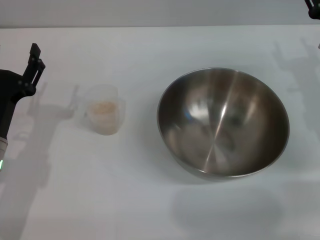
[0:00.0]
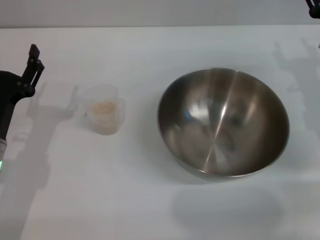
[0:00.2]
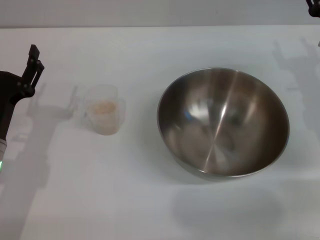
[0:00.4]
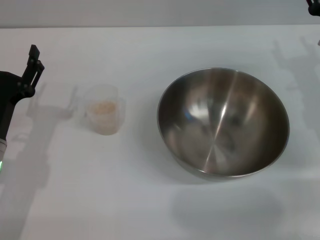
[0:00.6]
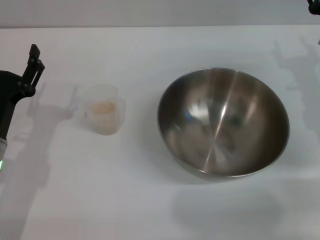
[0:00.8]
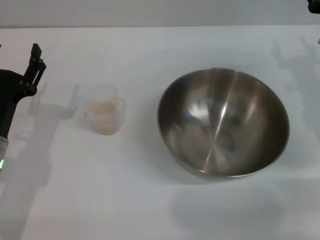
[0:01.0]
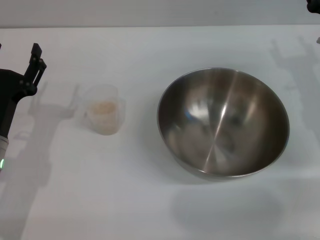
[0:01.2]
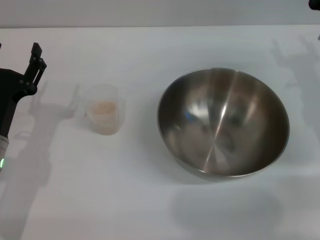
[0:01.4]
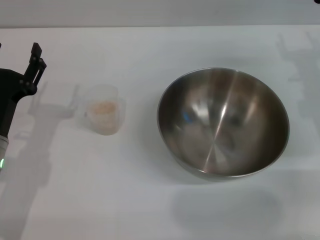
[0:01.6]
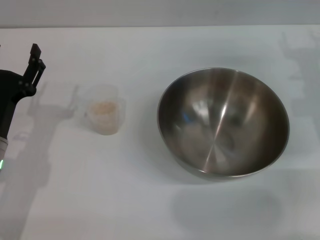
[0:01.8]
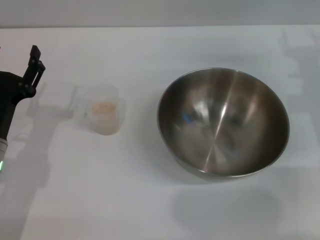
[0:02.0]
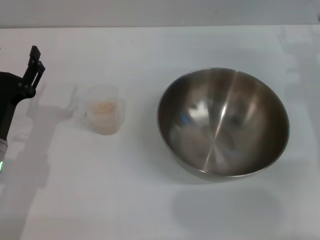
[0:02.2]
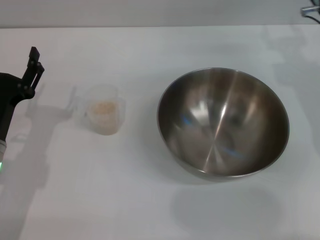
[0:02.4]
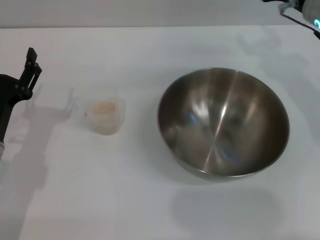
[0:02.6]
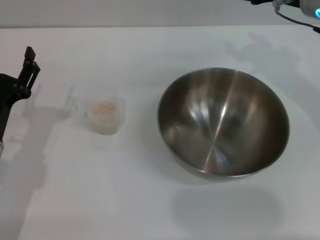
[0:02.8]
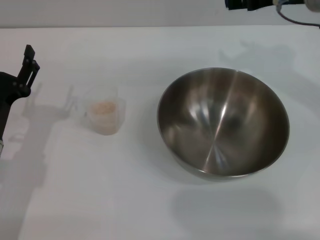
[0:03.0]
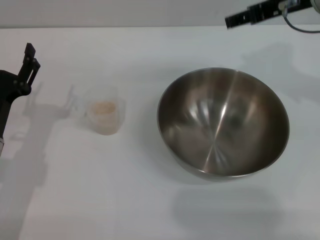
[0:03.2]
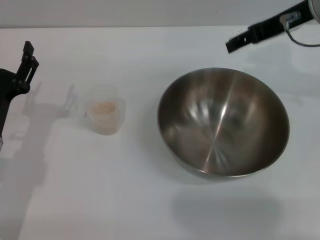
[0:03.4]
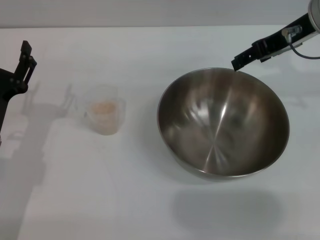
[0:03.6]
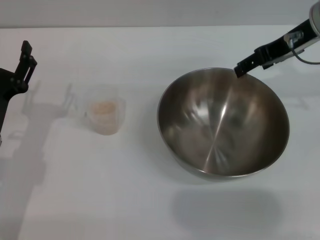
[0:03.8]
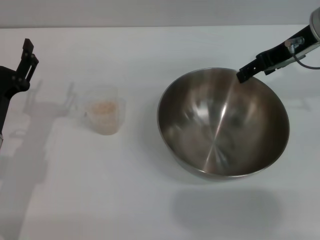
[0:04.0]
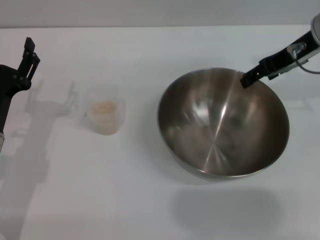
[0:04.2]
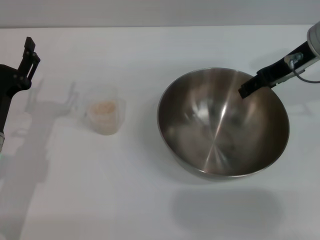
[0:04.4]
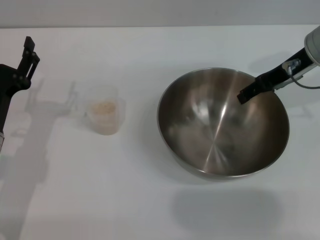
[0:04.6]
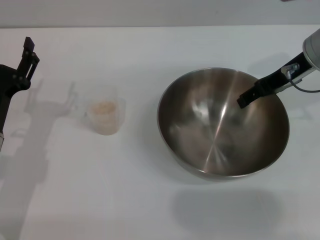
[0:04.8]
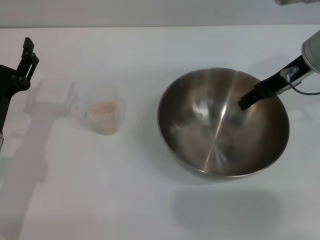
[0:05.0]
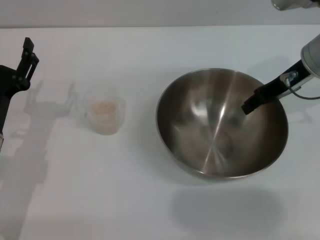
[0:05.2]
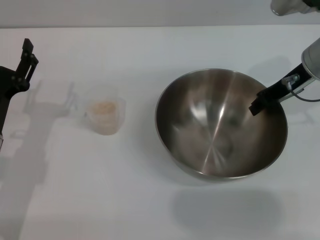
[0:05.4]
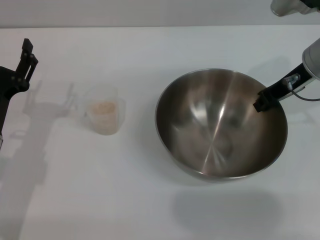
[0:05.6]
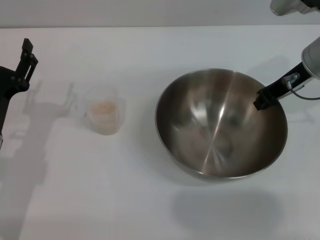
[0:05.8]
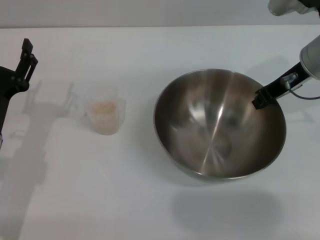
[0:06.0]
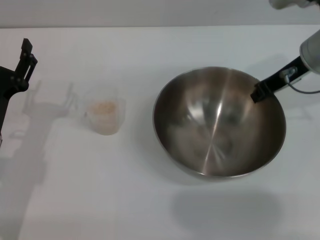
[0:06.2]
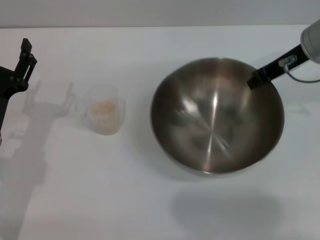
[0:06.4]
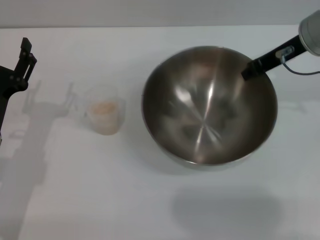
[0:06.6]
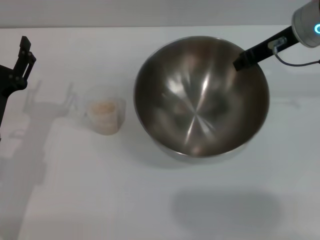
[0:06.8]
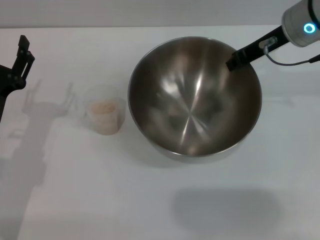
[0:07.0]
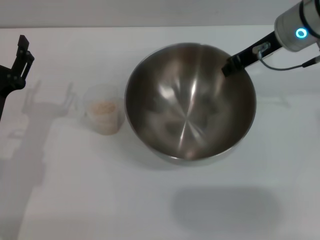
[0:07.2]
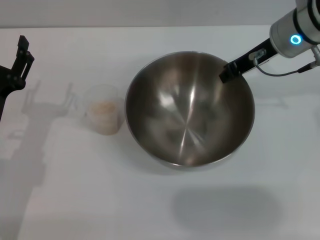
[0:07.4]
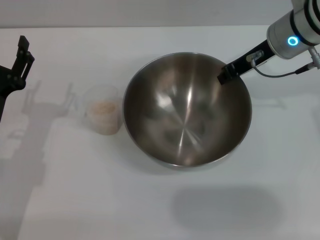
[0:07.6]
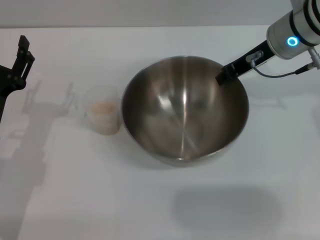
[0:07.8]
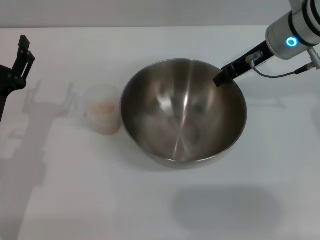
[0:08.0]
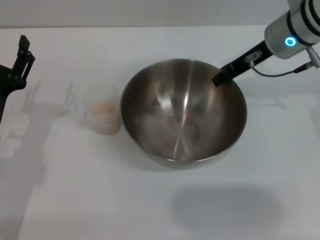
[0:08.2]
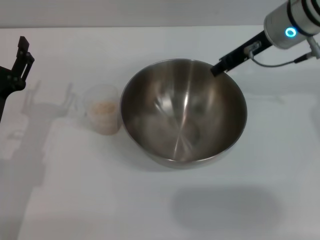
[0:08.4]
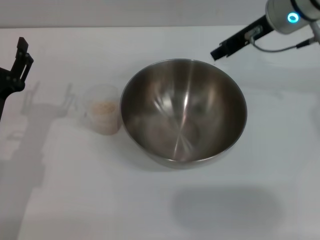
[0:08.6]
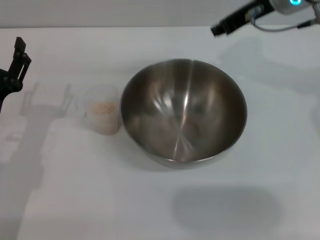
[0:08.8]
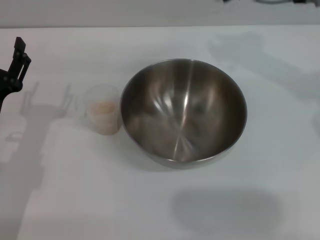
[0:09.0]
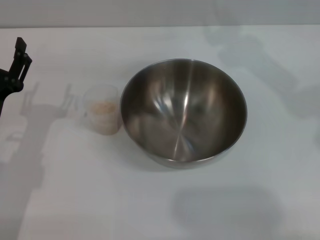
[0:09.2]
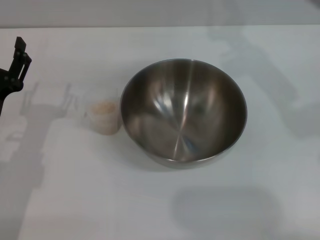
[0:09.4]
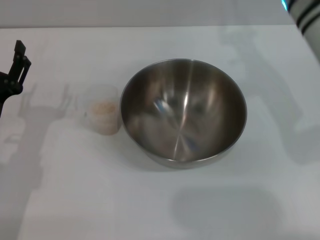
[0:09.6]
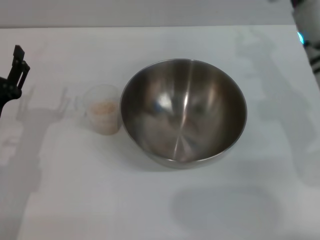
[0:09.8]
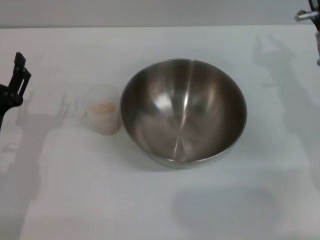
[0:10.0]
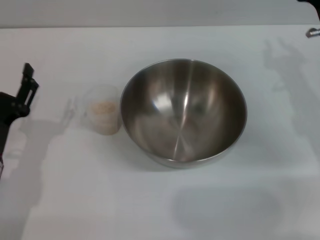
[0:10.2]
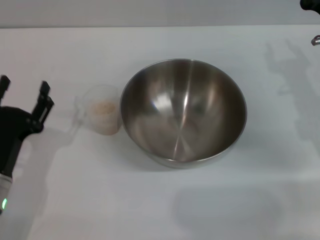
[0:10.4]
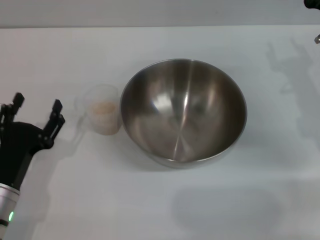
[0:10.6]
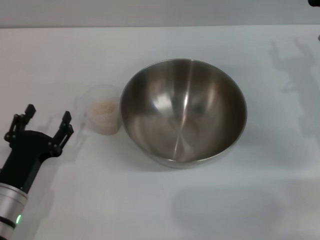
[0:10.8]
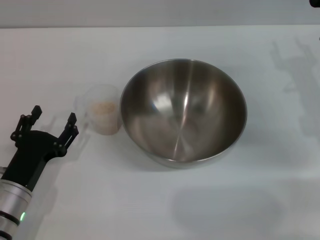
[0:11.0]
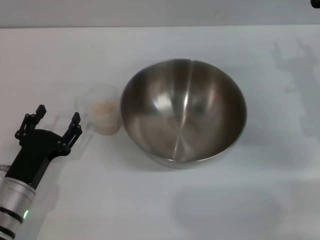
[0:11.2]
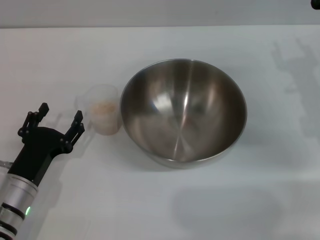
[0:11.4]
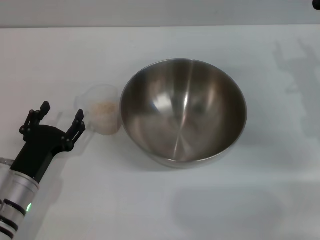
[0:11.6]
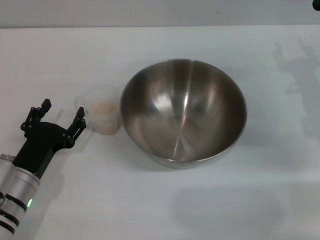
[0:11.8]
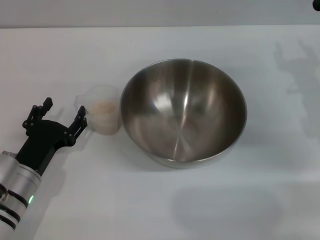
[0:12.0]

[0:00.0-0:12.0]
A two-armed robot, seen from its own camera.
Task of the whole recording: Place the bowl in the middle of the table with one hand and pour the rice from the grain cup into it with the other hand.
Step, 0.0 to 7.0 s: Pick up the bowl with the right gripper.
Step, 7.2 to 8.2 s: Place the bowl in the center of view with the right gripper.
0.0 to 1.6 s: The grippers move only a little.
1.6 to 3.0 s: The right gripper moves upward and to the left, about 15 cm.
3.0 to 4.4 s: The right gripper travels downward by approximately 5 cm.
4.4 to 6.0 s: The right gripper closes its fingers.
7.6 to 9.0 s: The right gripper shifts approximately 5 cm upward, and opens its fingers.
9.0 to 10.4 s: The right gripper travels downward, backward and to the right by some 20 cm.
10.4 to 12.0 s: The grippers make only small movements.

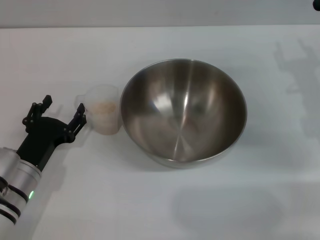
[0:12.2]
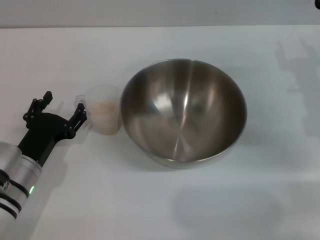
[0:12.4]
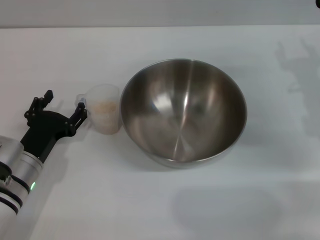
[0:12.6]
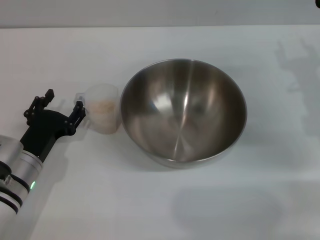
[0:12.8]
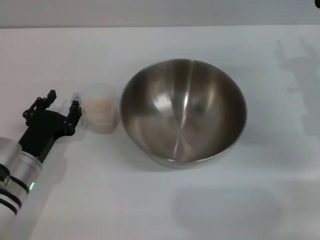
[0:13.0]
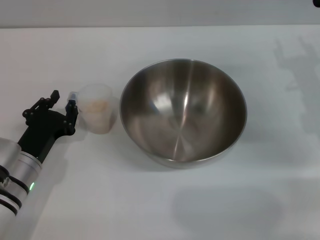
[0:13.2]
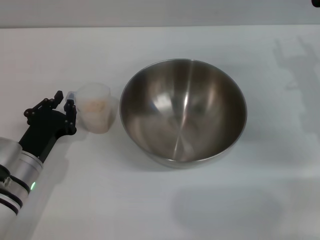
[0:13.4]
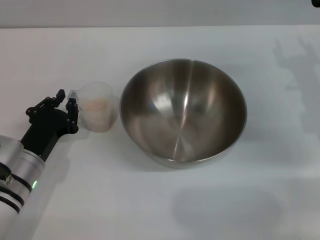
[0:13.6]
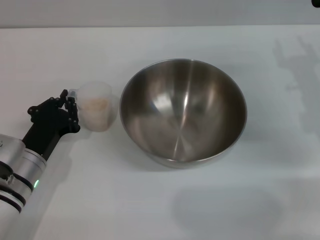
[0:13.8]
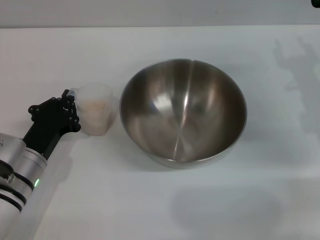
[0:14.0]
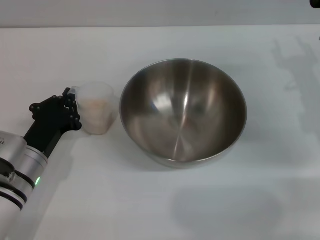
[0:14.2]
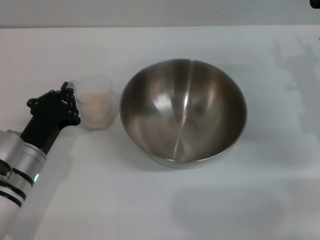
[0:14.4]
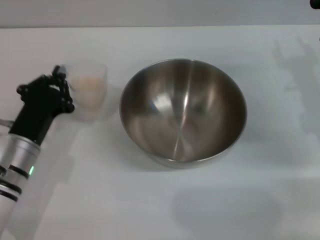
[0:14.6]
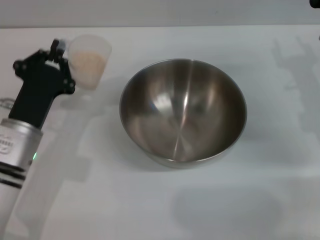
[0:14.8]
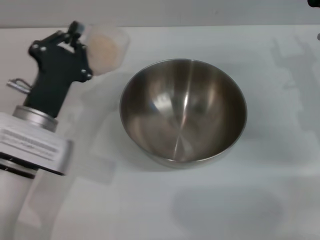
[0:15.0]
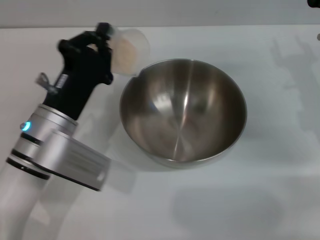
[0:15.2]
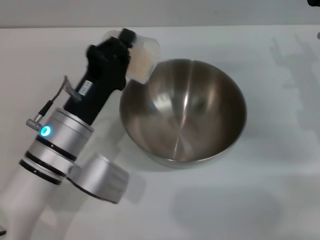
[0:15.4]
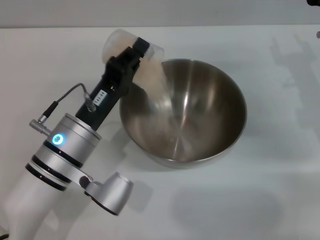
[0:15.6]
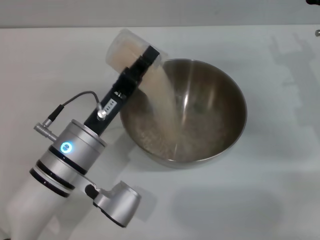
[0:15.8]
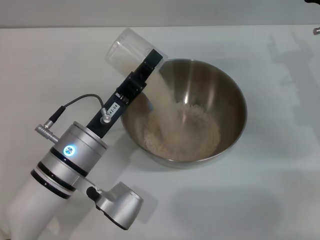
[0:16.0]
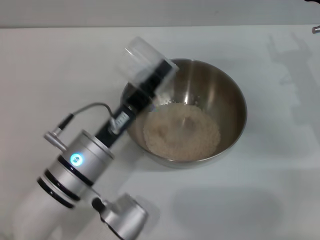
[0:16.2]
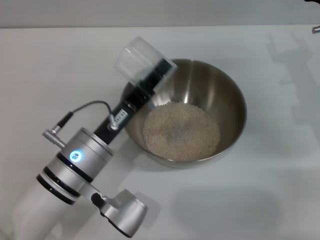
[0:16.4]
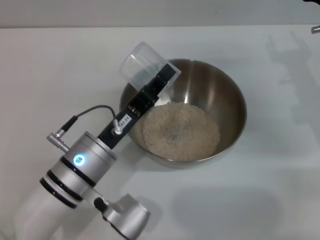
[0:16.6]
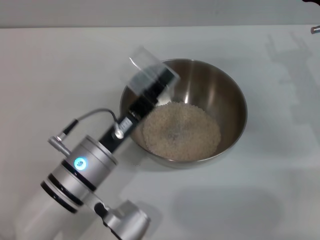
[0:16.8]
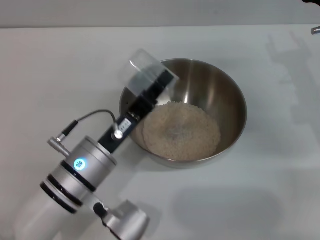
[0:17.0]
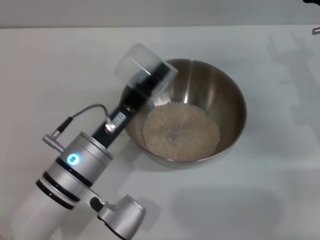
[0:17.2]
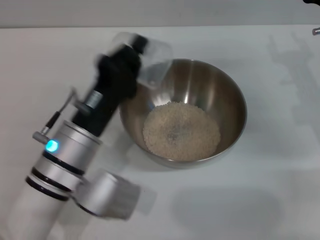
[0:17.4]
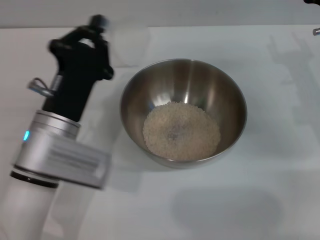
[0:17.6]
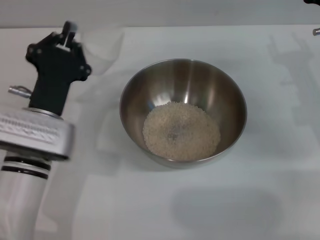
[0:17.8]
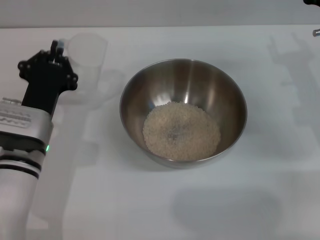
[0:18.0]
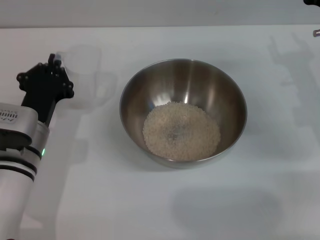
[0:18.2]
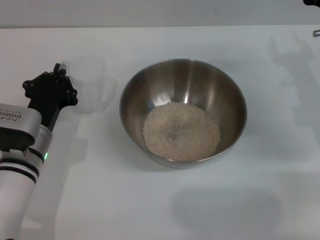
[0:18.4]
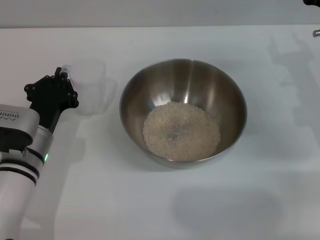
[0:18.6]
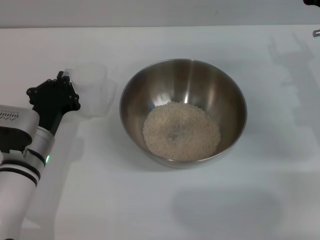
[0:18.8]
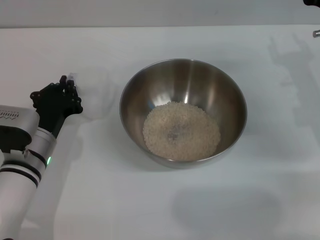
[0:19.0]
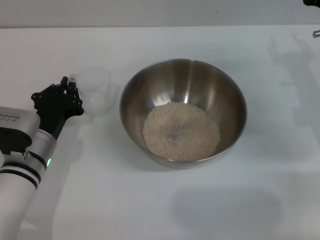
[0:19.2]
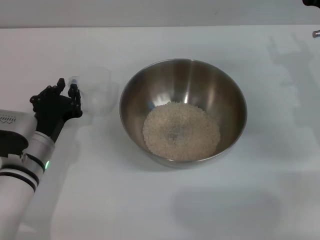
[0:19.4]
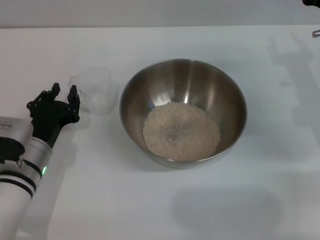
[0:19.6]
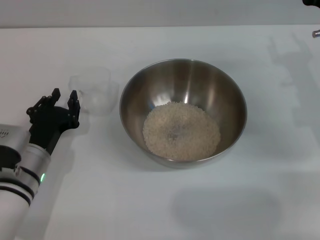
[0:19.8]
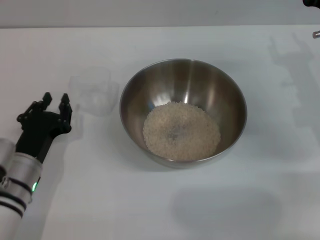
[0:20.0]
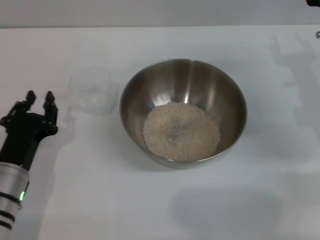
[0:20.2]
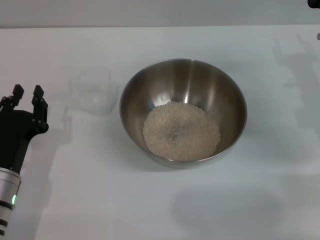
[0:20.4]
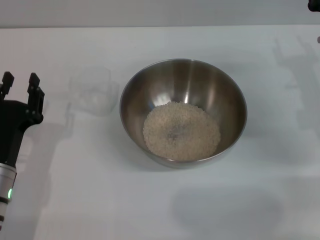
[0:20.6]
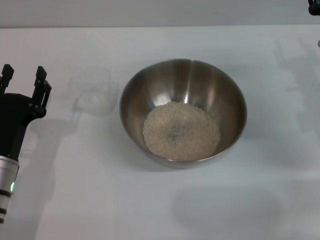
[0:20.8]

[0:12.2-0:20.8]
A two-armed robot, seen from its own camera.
Task of the whole recording: Place the bowl in the middle of the table with one hand and pour the rice from the grain cup into it with the other hand.
Step, 12.2 to 14.8 s: Pick up the cup with rice in it with the left gripper.
Step, 15.0 to 16.2 s: Pour the rice from the cup into the bowl with the left gripper.
Step, 16.4 to 19.8 s: Place the cup on the table with the left gripper.
12.2 to 13.6 s: The left gripper closes its fingers.
13.6 to 15.0 s: The left gripper travels upward by roughly 5 cm.
15.0 to 16.6 s: The left gripper travels to the right by about 5 cm.
16.6 to 18.0 s: The left gripper is displaced to the left by some 5 cm.
19.4 to 20.8 s: The left gripper heads backward, covering approximately 5 cm, and opens.

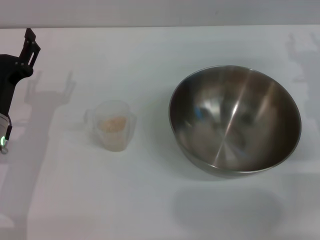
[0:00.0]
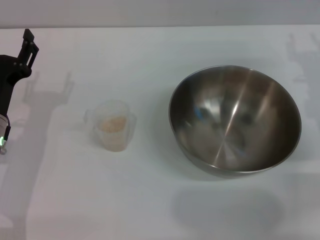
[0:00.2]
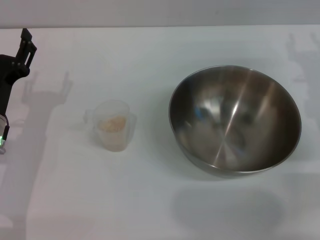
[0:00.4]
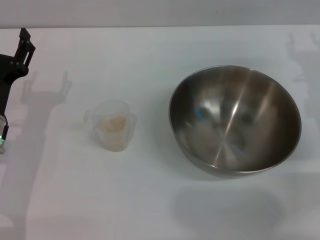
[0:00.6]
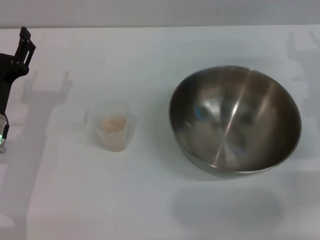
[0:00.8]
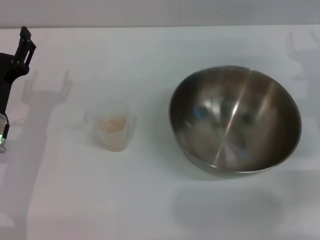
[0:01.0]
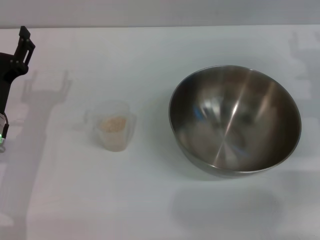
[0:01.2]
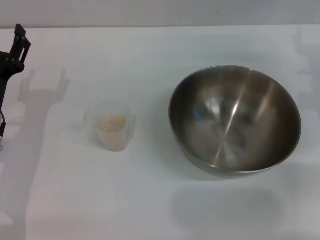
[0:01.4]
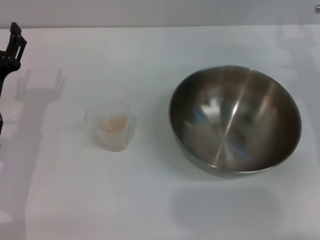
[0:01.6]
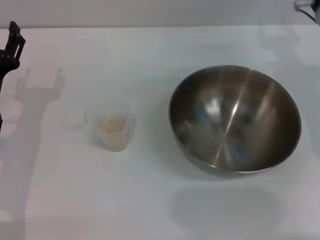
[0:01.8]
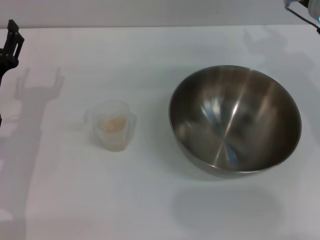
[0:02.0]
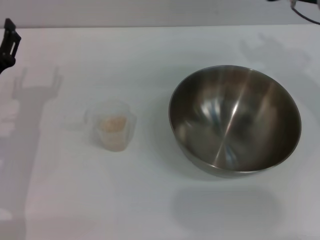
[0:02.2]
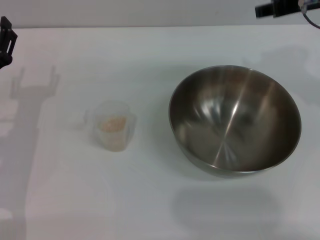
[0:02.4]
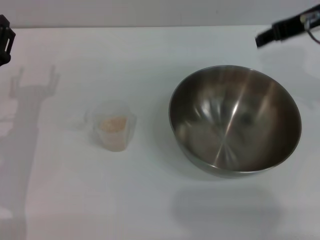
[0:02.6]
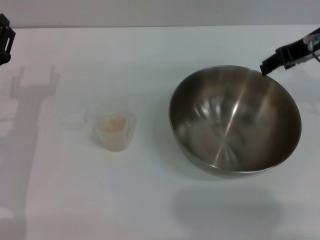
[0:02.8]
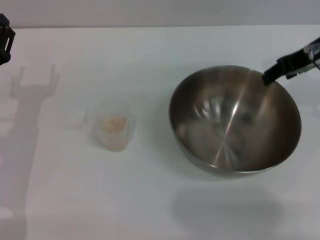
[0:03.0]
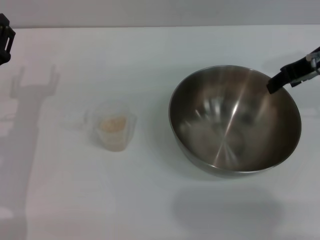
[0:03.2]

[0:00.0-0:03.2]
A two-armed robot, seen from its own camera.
Task of the whole recording: Place the bowl in the middle of the table with one hand and pour the rice from the grain cup into it with the other hand.
0.0 to 1.6 s: The grippers make only small movements.
1.6 to 3.2 s: The right gripper heads upward, covering about 10 cm.
